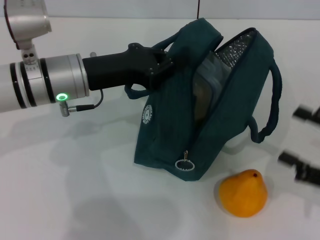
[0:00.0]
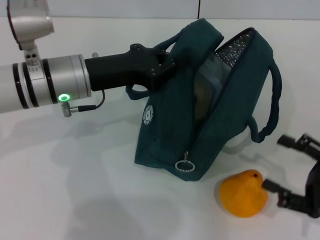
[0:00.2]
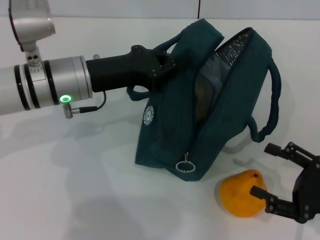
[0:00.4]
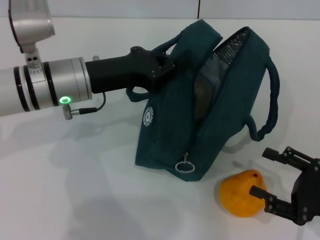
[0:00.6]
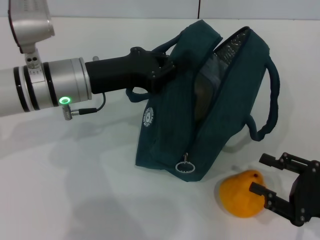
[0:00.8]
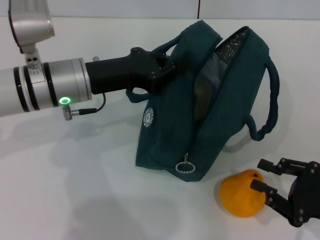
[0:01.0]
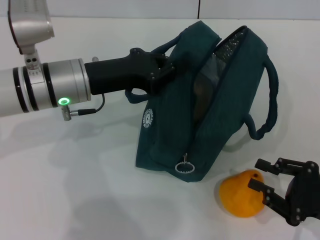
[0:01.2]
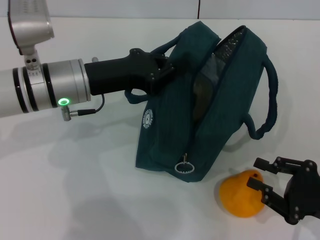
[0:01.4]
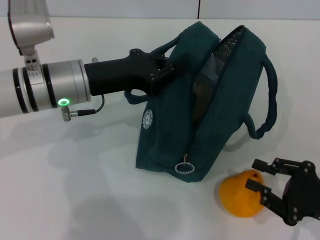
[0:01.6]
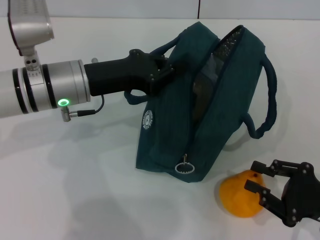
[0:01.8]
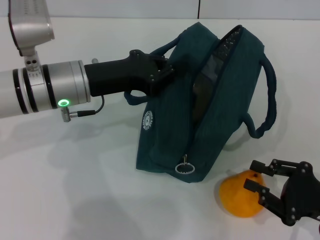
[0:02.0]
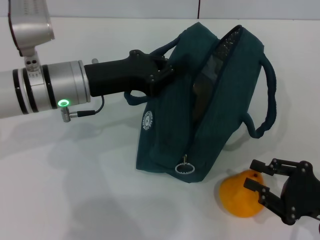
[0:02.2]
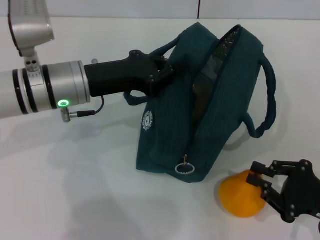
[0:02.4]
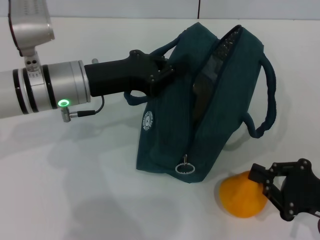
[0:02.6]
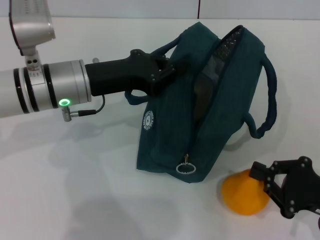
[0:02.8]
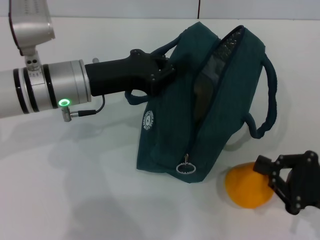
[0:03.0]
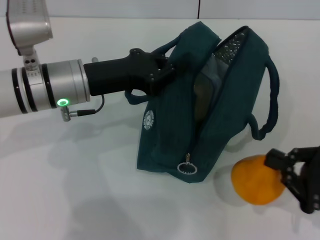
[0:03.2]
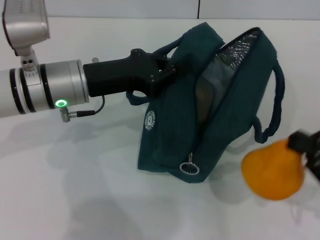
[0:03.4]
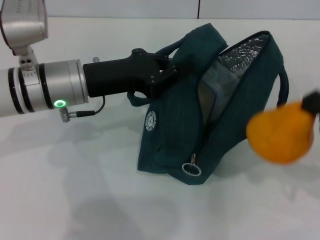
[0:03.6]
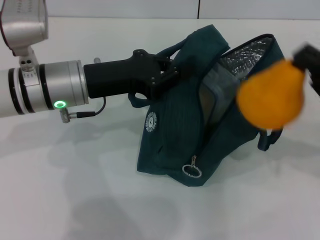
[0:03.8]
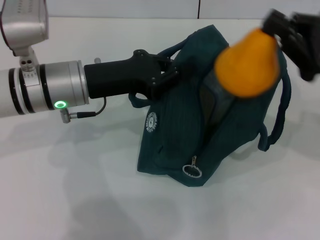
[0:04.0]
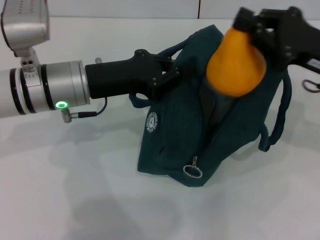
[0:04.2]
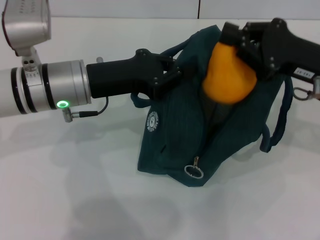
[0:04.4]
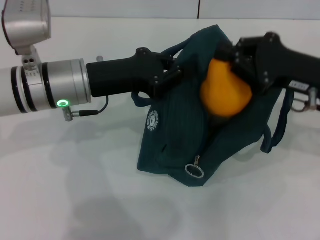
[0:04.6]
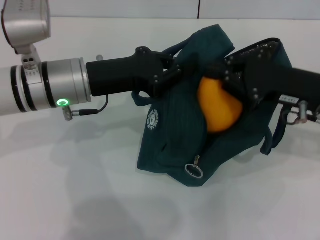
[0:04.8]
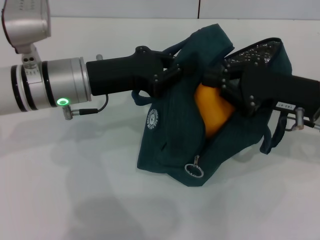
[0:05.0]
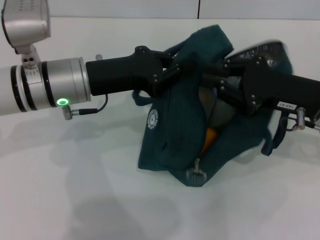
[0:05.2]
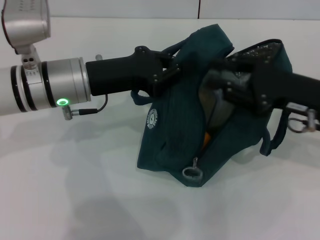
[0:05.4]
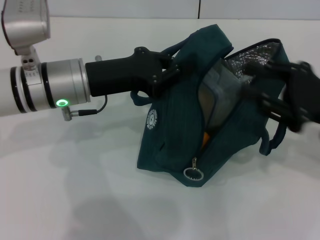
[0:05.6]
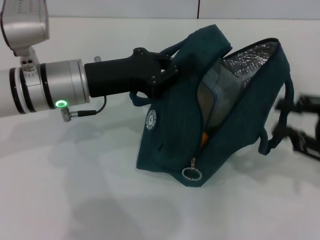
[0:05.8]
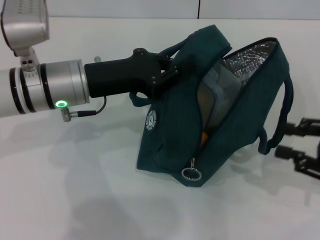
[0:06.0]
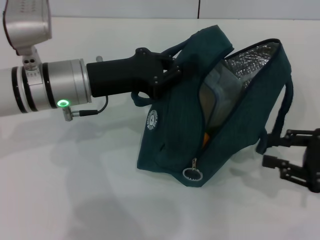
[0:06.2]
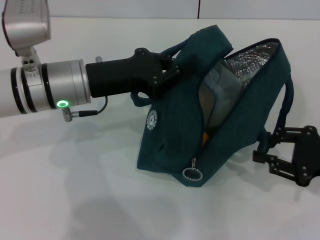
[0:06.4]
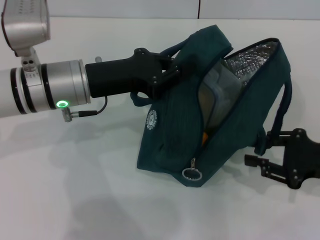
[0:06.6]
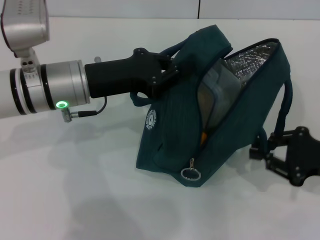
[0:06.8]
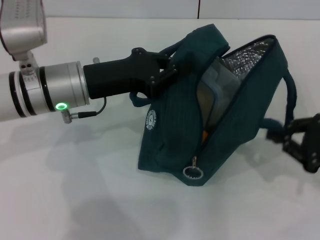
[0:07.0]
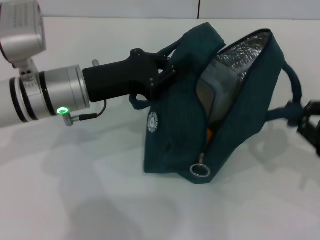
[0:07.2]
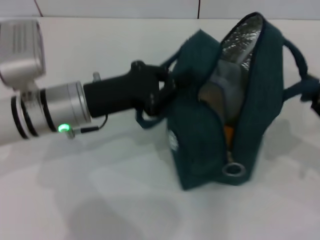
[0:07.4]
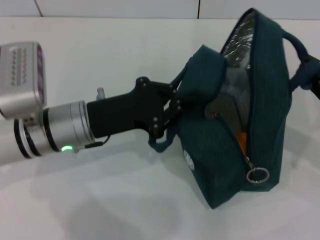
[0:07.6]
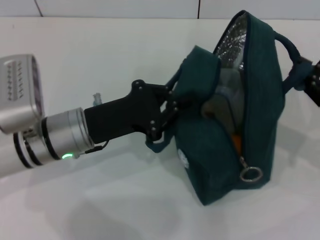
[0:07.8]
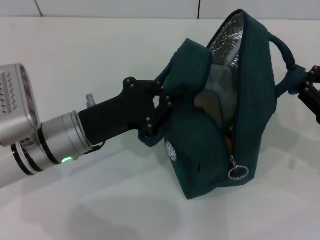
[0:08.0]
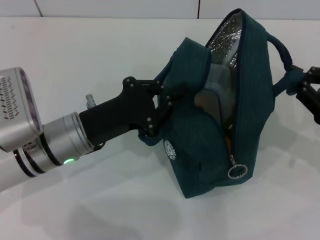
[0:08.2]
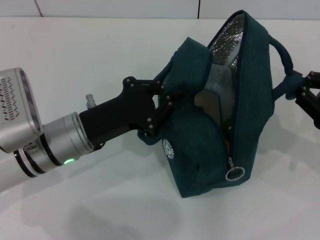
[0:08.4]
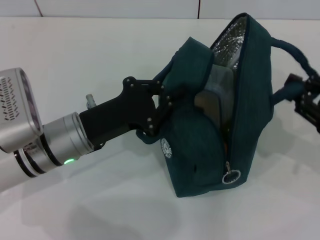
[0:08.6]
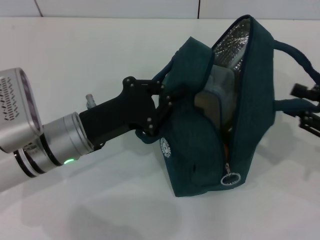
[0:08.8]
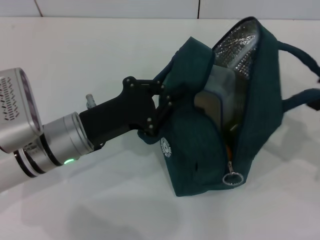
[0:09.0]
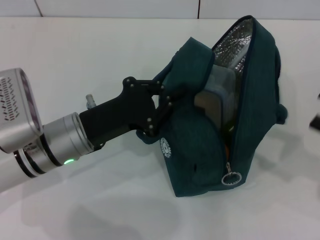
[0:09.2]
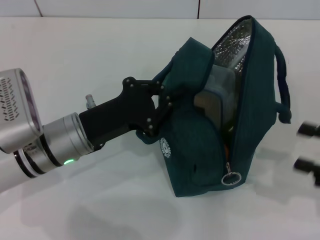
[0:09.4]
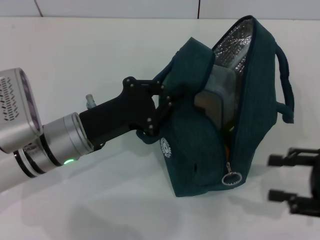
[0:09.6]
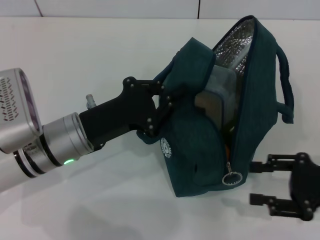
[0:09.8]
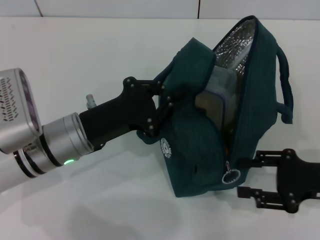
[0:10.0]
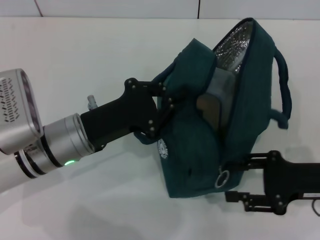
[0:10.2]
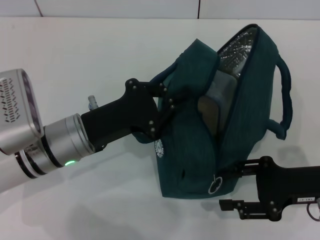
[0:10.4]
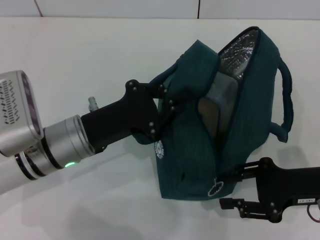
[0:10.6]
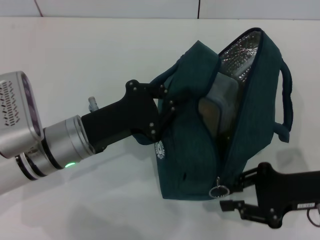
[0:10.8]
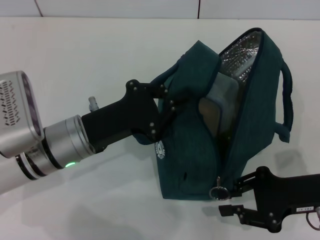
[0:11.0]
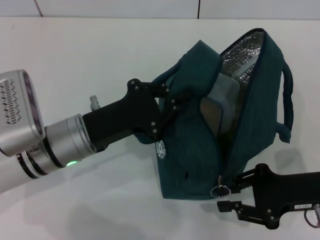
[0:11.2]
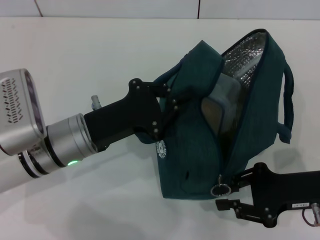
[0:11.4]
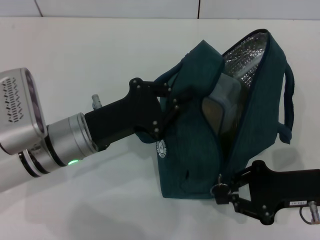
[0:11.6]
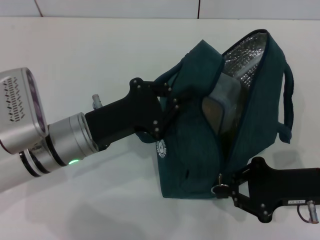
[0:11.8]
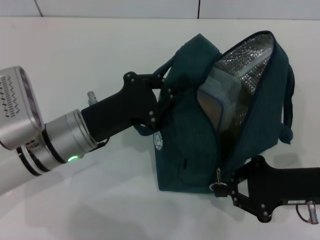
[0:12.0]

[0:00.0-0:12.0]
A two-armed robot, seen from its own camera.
Step, 0:00.0 to 0:02.6: Grab the pear with your right hand.
Step, 0:05.6 to 0:09.0: Hold the lunch bag with your right hand.
0:00.0 to 0:01.6: The right gripper ends up roughly 5 cm from where it was, and closes up.
0:01.6 to 0:03.0: The right gripper closes up.
0:03.0 to 0:04.4: The right gripper moves forward and upward, some 15 cm.
0:04.4 to 0:06.0: The right gripper travels backward and to the right by some 15 cm, and opens.
0:06.0 to 0:07.6: The right gripper closes its fingers; the left gripper changes place by some 5 cm.
0:07.6 to 0:09.0: The right gripper opens.
0:09.0 to 0:10.4: The right gripper shifts some 10 cm to the left.
0:10.4 to 0:12.0: The right gripper closes its fingers.

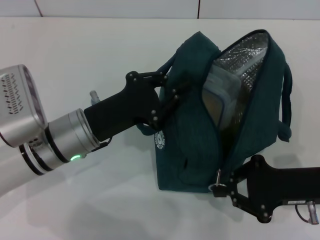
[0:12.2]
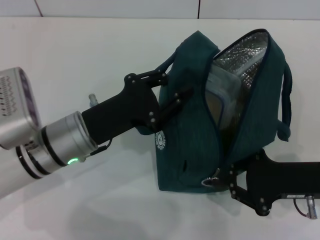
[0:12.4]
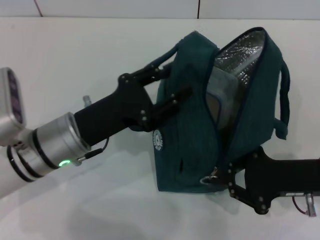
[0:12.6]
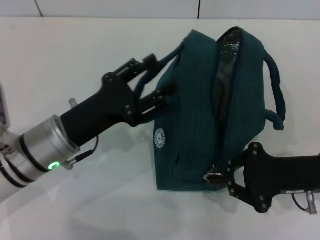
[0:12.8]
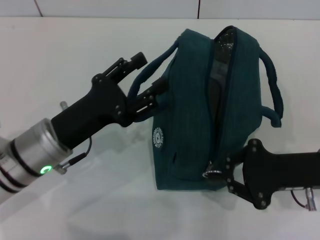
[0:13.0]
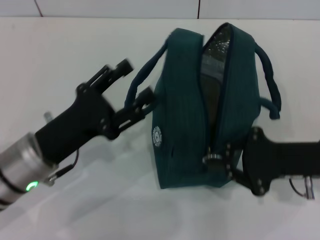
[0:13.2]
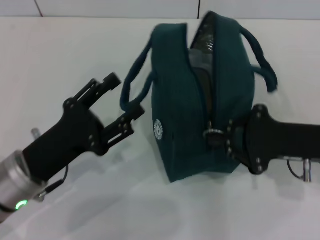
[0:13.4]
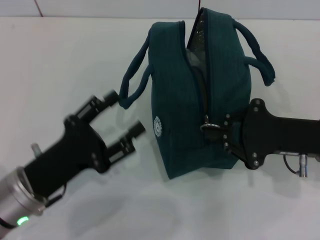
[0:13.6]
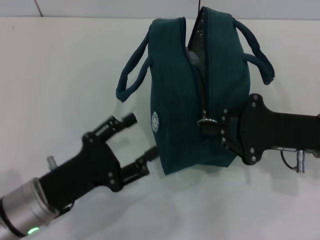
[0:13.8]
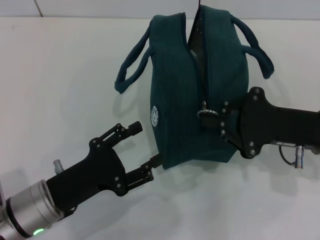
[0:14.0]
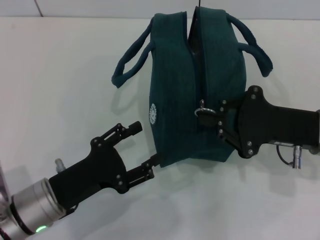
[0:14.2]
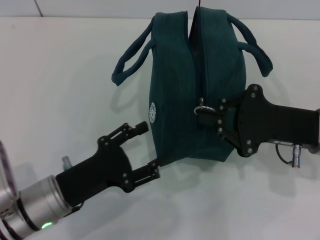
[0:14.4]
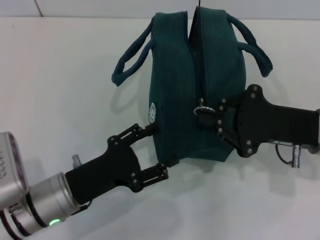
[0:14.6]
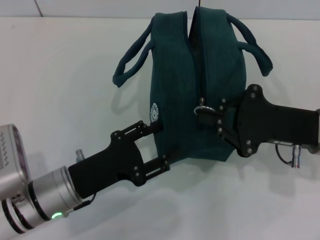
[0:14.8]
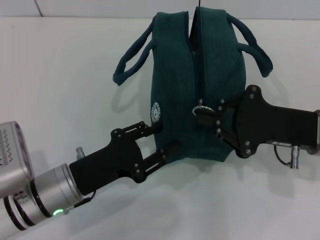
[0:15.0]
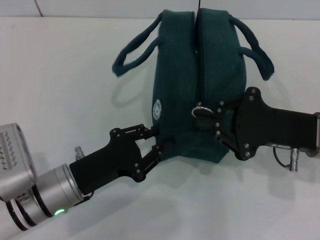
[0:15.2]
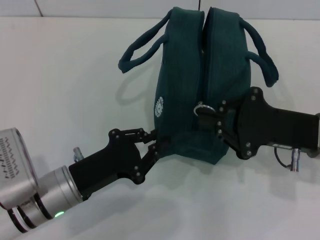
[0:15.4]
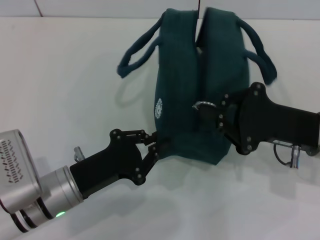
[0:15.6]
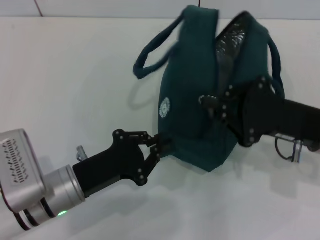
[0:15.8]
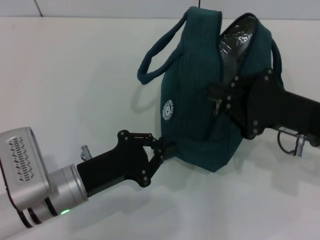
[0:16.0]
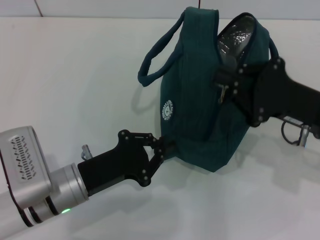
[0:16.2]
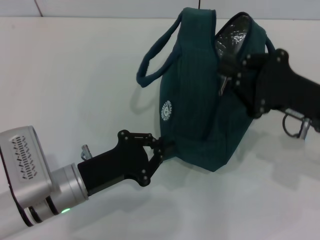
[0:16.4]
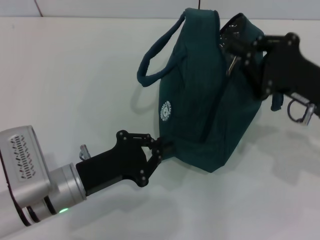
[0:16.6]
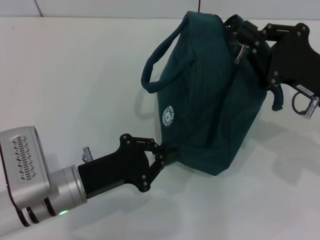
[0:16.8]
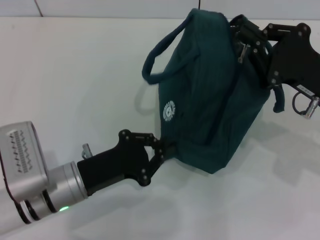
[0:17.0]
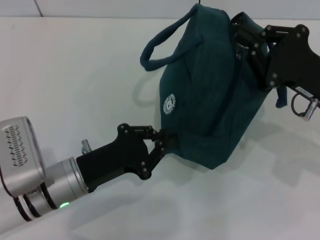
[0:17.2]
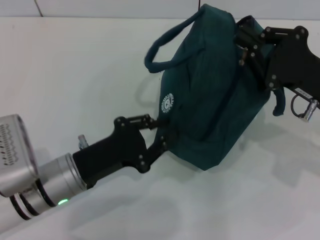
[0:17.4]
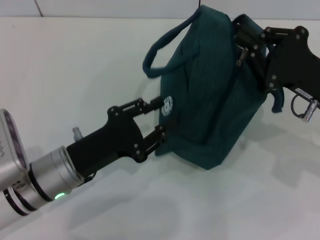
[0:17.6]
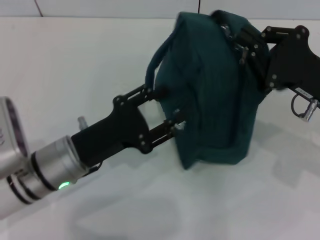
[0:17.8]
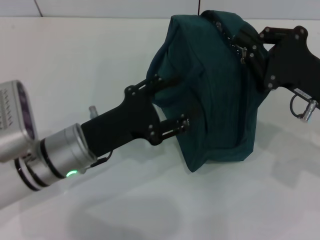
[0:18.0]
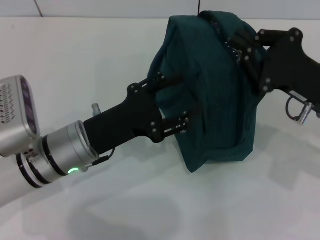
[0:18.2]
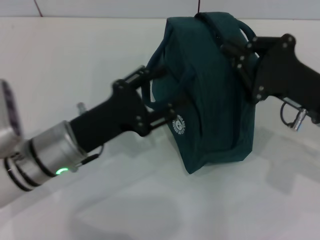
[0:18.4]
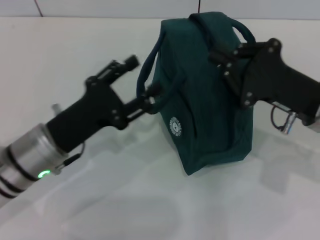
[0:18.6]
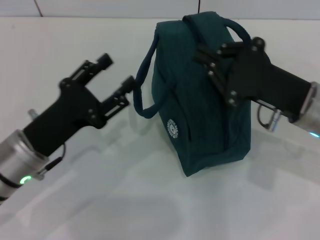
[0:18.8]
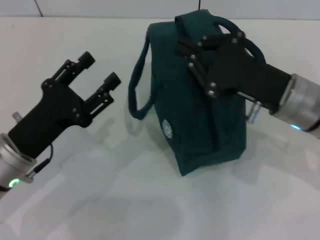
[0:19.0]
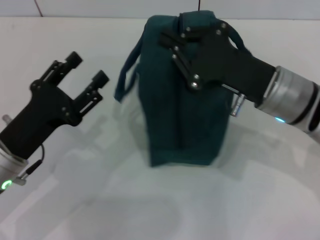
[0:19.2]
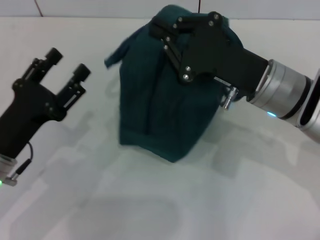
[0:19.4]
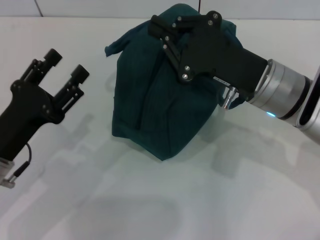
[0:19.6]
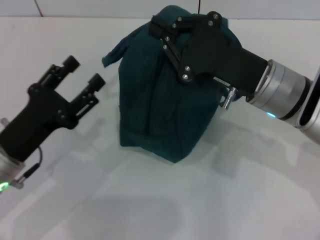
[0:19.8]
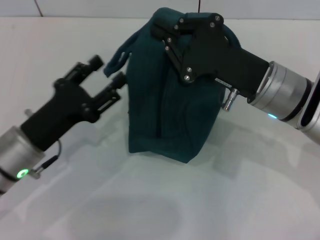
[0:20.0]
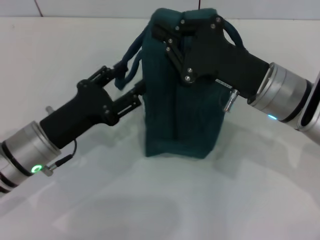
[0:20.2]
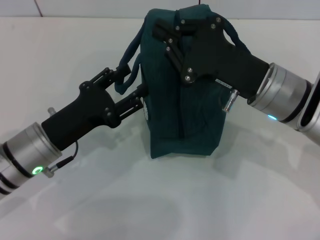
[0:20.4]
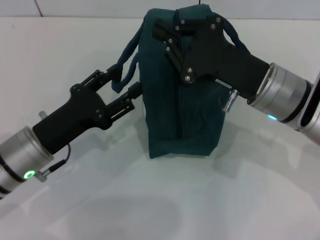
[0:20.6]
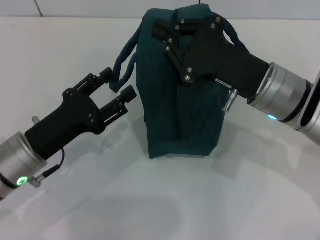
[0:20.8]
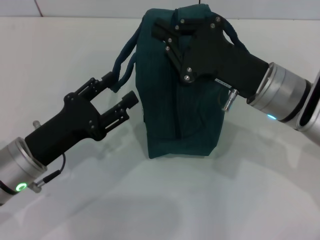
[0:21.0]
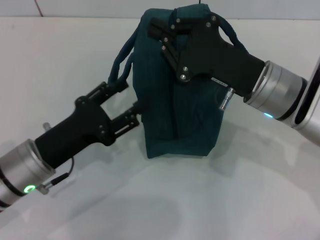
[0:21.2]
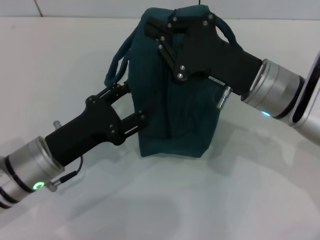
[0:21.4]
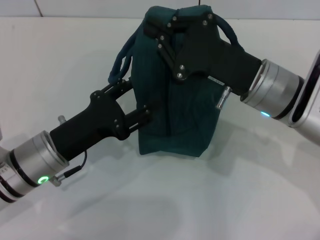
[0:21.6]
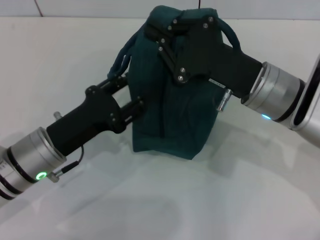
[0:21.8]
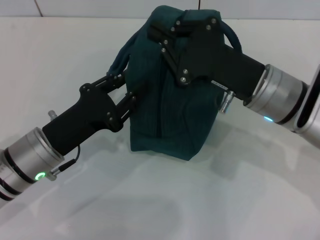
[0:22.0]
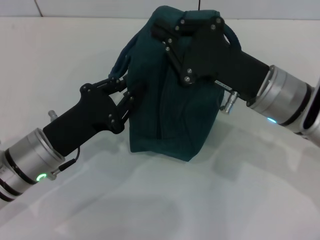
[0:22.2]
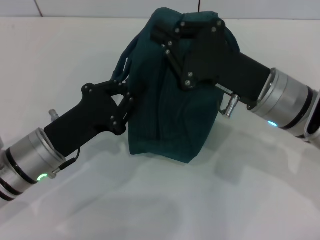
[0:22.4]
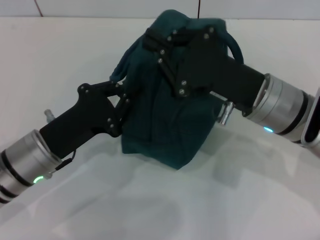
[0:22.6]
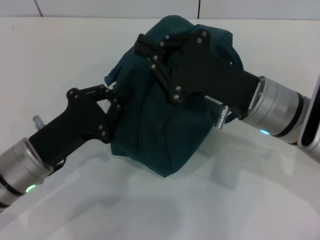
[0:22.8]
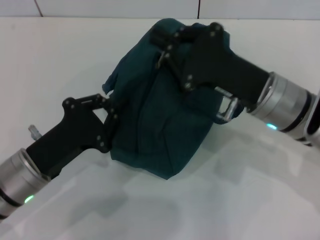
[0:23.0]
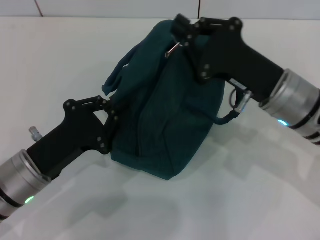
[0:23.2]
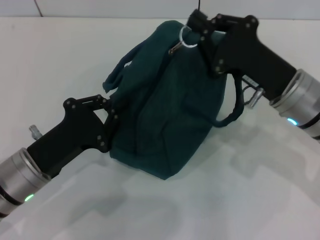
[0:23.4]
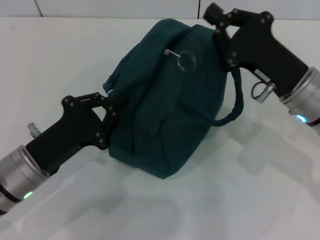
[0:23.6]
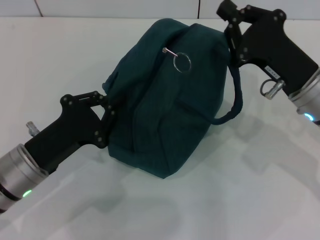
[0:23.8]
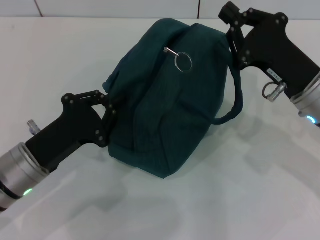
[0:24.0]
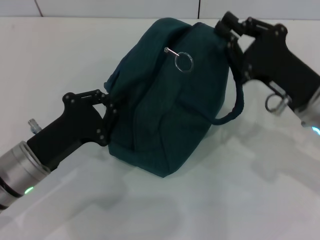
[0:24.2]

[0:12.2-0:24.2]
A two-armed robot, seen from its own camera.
0:12.2 to 0:13.8: The right gripper ends up some 5 cm from where it was. Meanwhile the left gripper heads backward, covering roughly 10 cm, and opens its fingers.
0:13.8 to 0:15.2: The grippers make only small movements.
0:15.2 to 0:16.6: The left gripper closes its fingers.
0:16.6 to 0:18.2: The left gripper changes place by some 5 cm, and opens its fingers.
0:18.2 to 0:19.8: Both grippers move to the left, approximately 10 cm.
0:21.2 to 0:22.6: The left gripper closes up.
0:22.6 to 0:24.2: The right gripper shifts about 5 cm to the right.
